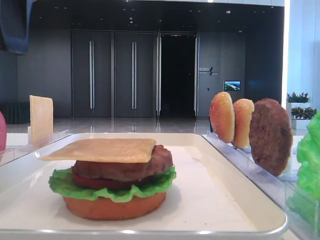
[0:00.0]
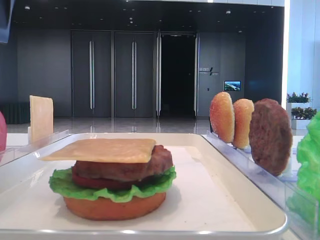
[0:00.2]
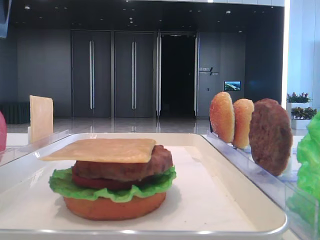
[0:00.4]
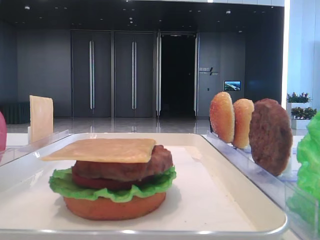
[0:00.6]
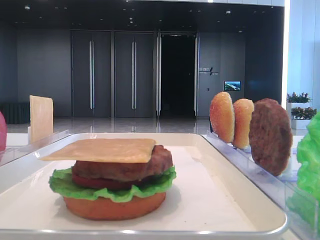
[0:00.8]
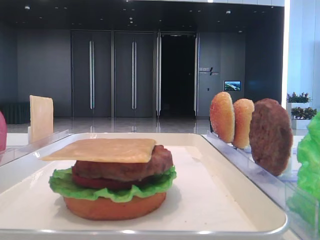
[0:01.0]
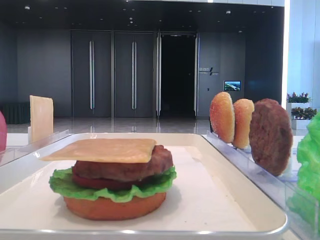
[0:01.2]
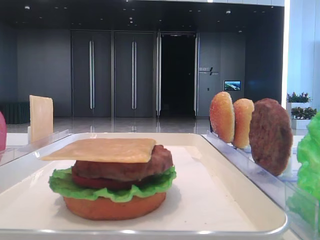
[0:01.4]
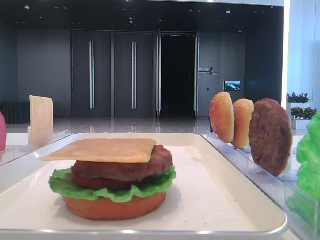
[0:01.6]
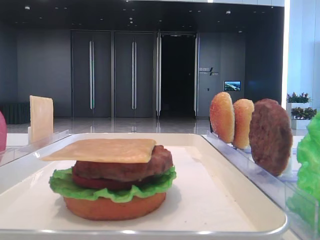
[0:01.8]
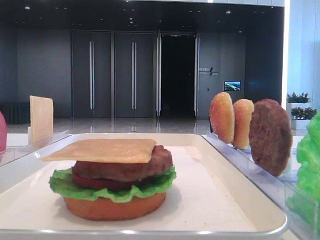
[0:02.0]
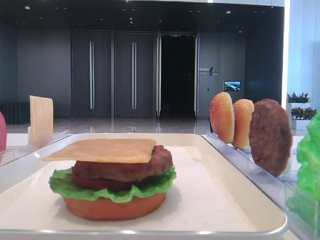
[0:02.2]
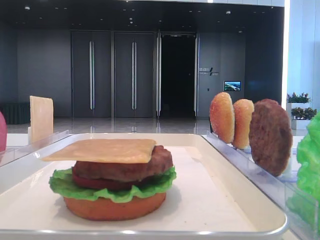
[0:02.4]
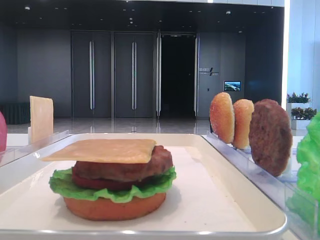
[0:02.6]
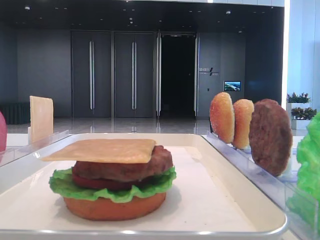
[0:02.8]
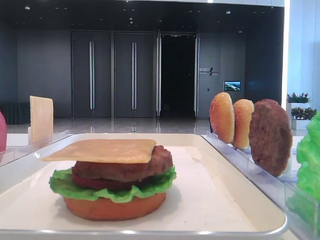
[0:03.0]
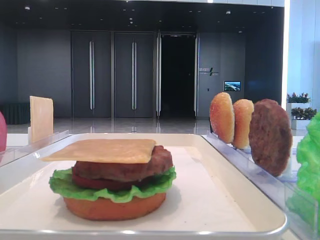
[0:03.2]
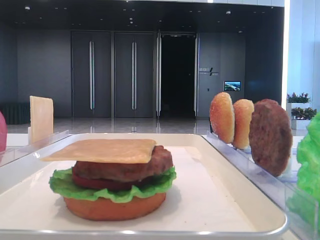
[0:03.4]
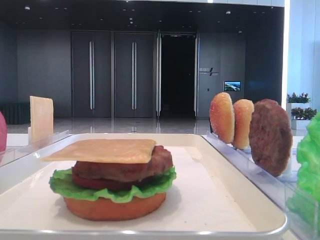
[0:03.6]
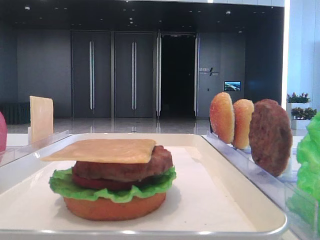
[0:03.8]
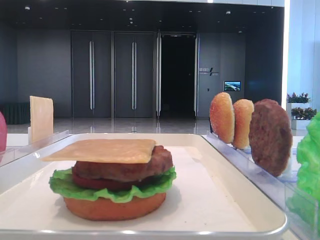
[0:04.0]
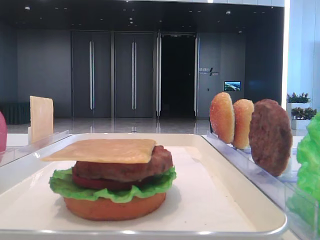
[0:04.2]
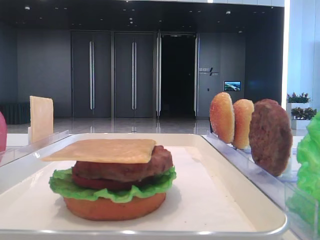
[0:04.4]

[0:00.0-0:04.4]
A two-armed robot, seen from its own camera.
0:00.0 to 0:01.4: The left gripper moves to the left, roughly 15 cm.
0:01.4 to 0:03.0: The left gripper is displaced backward by about 30 cm.
